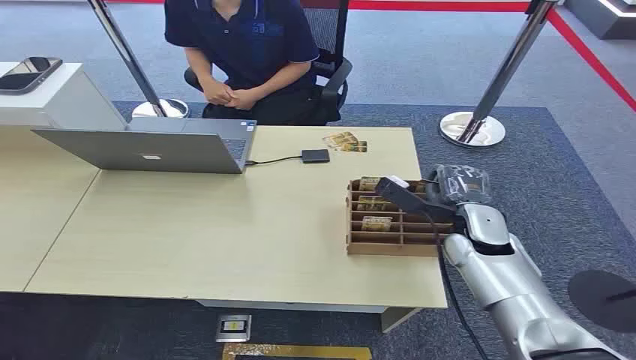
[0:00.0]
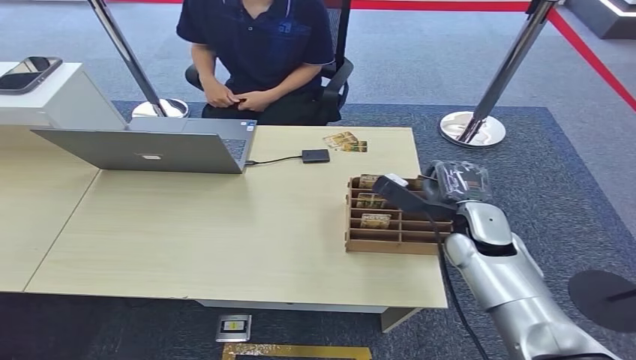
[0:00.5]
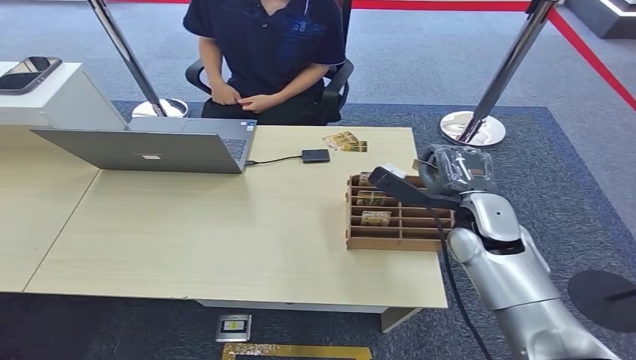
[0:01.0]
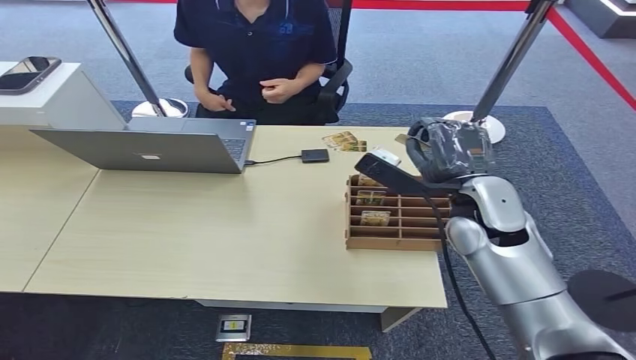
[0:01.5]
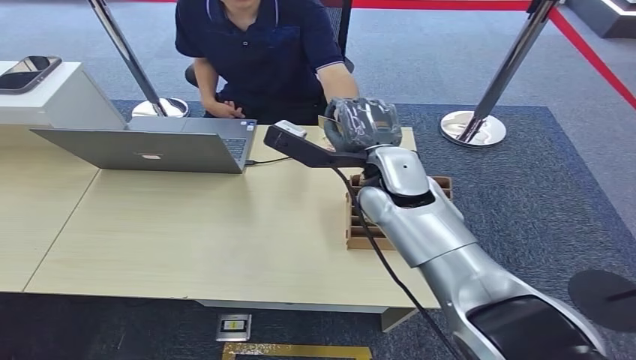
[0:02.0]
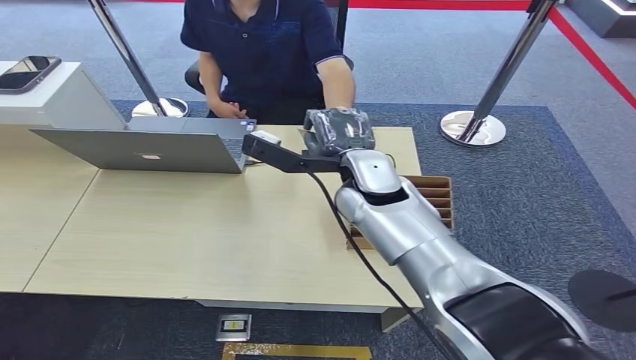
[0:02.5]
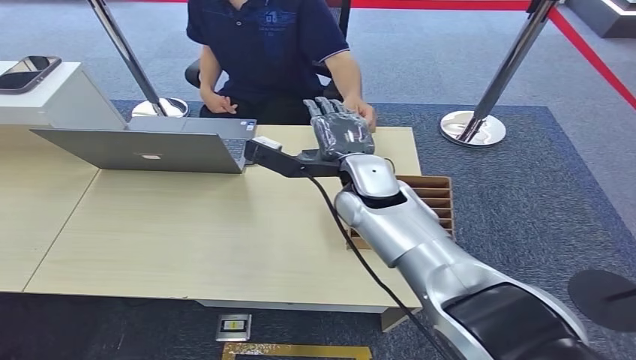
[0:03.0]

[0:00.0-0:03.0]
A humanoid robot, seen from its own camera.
Task of the whole recording: Pick up the card and hand it to the target person.
Step, 0:00.0 to 0:01.5: Pick up the key card from the card box.
Step, 0:02.0 to 0:03.0: Hand the key card to the target.
0:01.5 to 0:03.0: The right hand shifts approximately 15 cm to the left.
